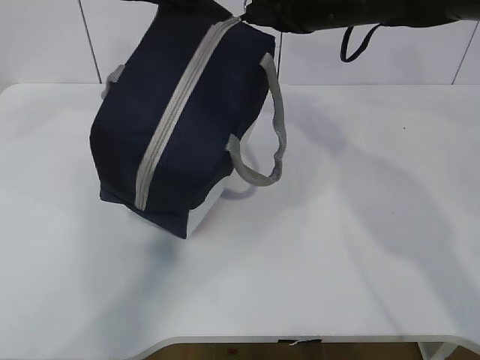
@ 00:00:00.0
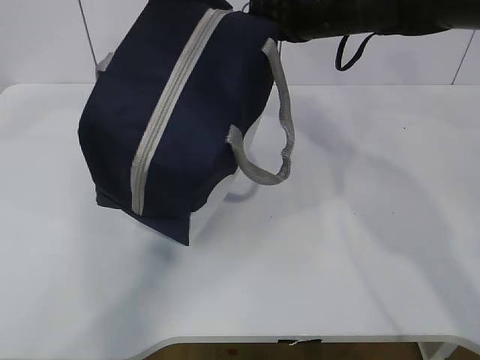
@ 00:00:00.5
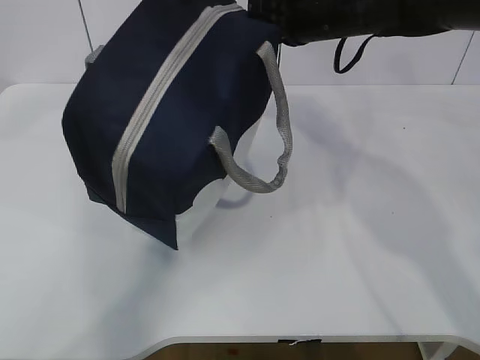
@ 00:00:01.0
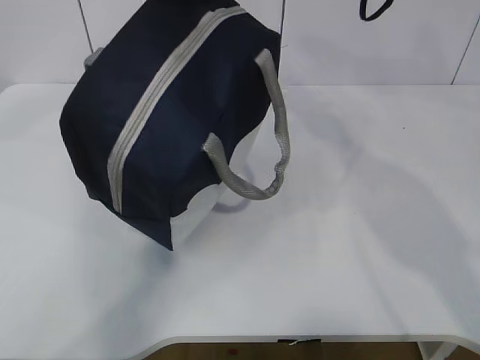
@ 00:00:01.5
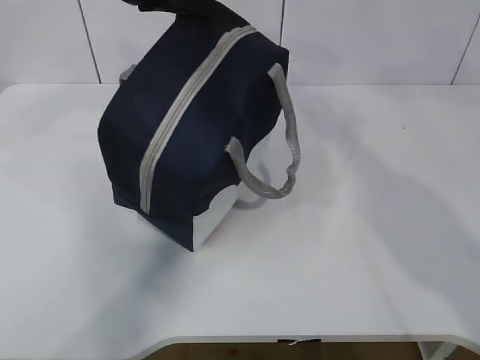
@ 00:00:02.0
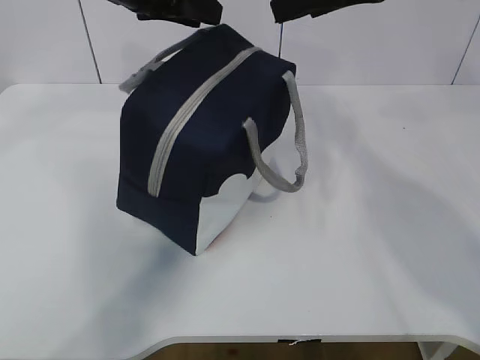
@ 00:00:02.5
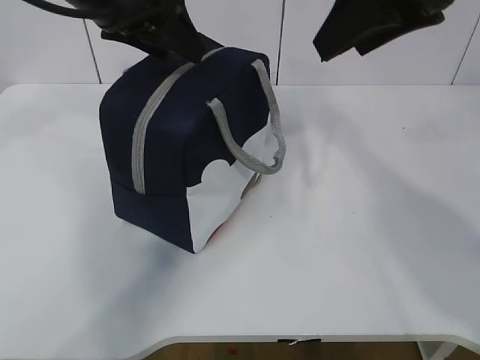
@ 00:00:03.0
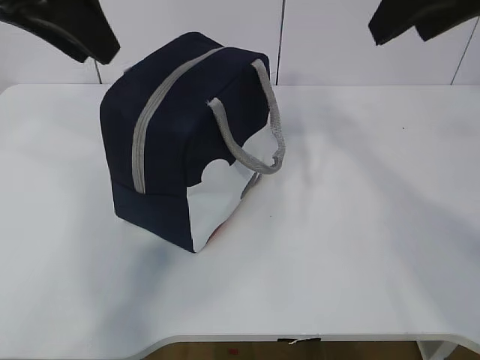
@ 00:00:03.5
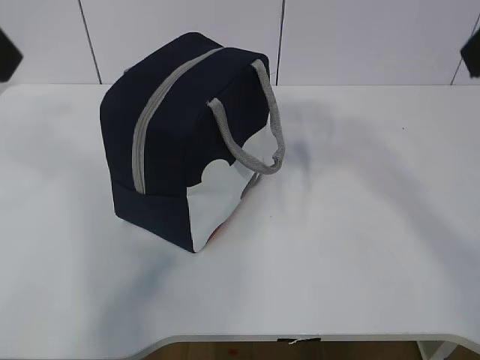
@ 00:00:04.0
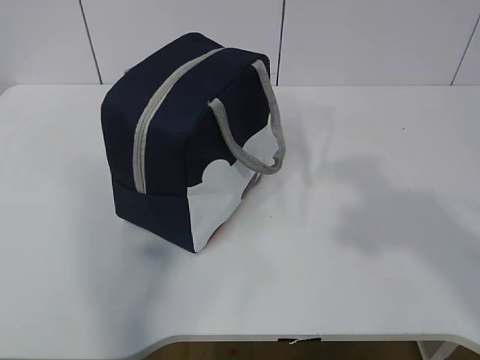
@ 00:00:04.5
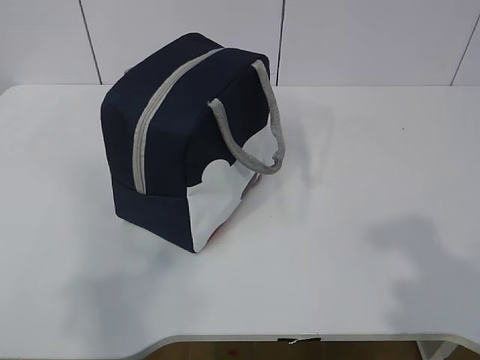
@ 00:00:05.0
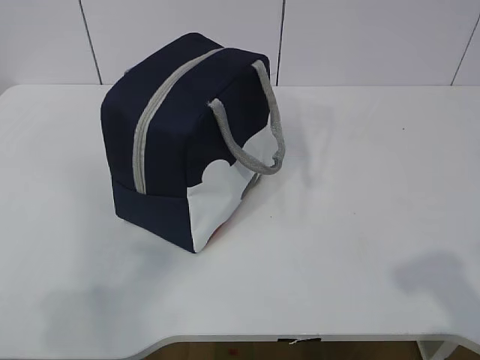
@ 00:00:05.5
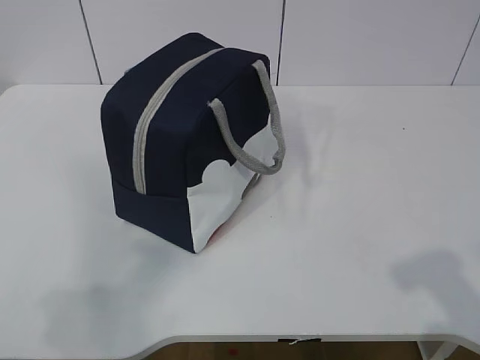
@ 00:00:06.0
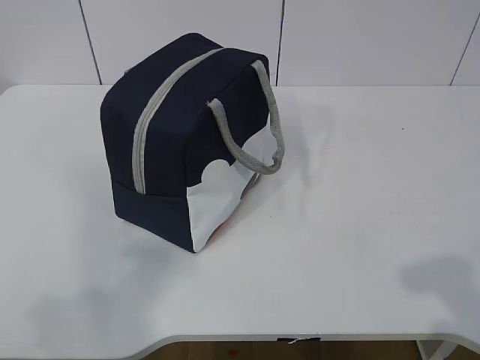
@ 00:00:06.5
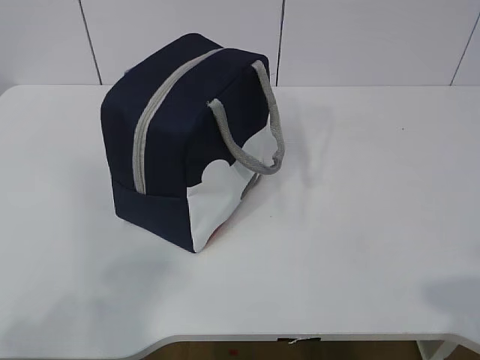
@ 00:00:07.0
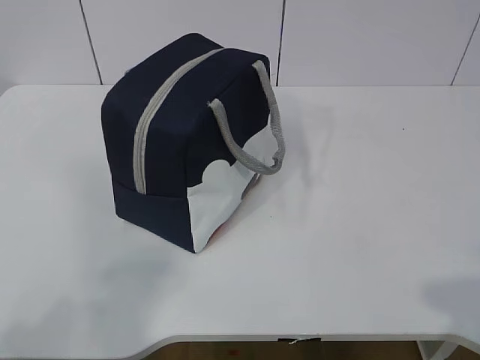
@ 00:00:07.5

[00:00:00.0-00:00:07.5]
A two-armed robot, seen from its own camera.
00:00:00.0 to 00:00:02.0: The right gripper heads upward and backward, covering some 10 cm, and opens.
00:00:02.0 to 00:00:04.0: The left gripper goes roughly 20 cm backward and to the left, and opens its fingers. The right gripper is displaced backward by roughly 20 cm.
00:00:04.0 to 00:00:05.5: The left gripper travels backward, downward and to the left by approximately 25 cm; the right gripper goes some 25 cm backward and downward.
